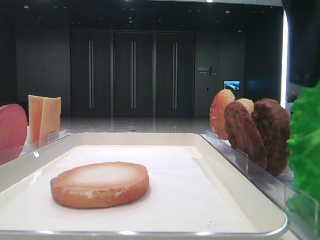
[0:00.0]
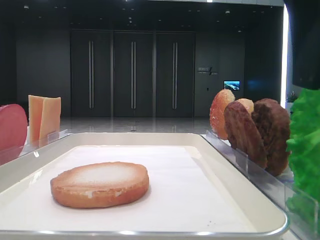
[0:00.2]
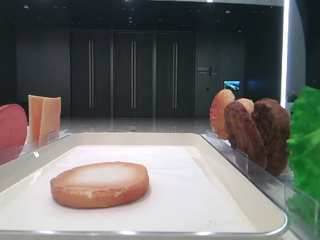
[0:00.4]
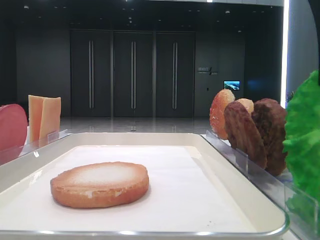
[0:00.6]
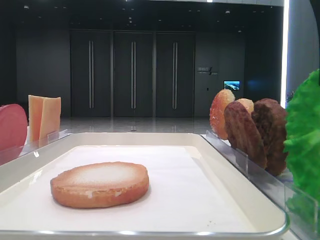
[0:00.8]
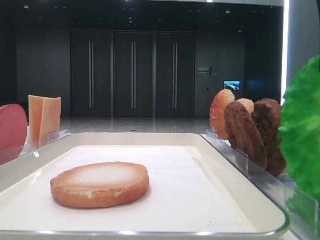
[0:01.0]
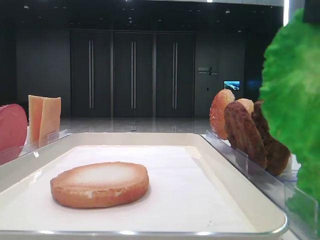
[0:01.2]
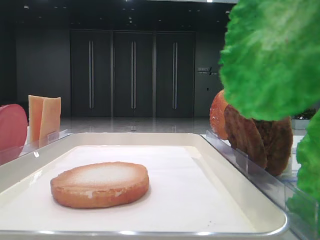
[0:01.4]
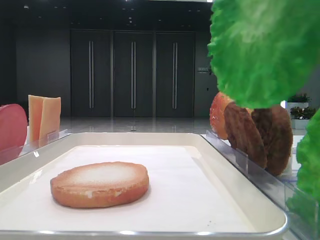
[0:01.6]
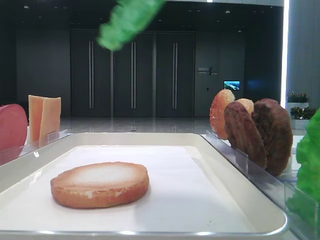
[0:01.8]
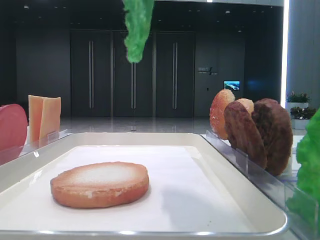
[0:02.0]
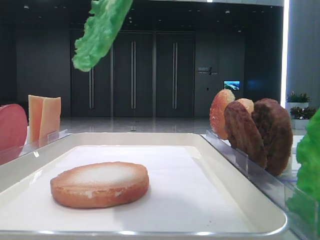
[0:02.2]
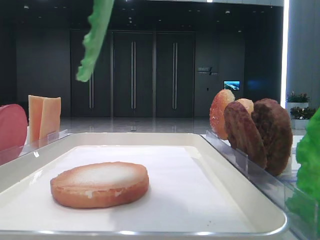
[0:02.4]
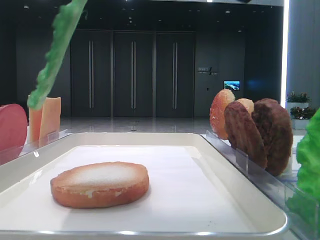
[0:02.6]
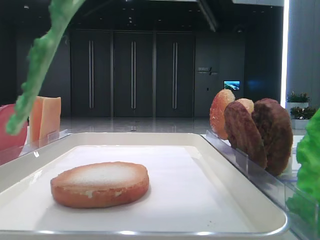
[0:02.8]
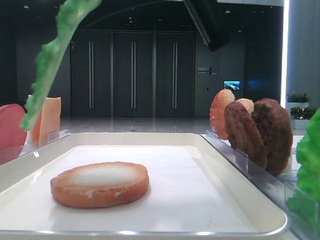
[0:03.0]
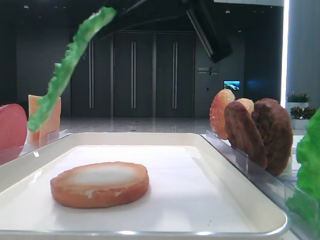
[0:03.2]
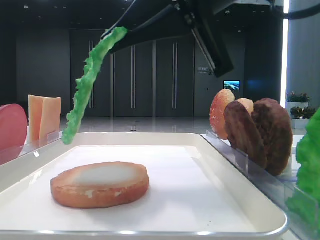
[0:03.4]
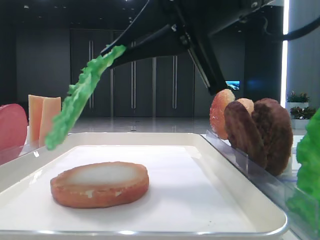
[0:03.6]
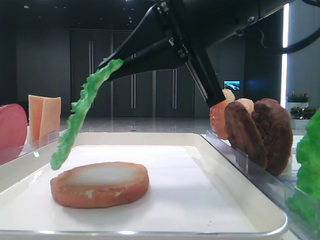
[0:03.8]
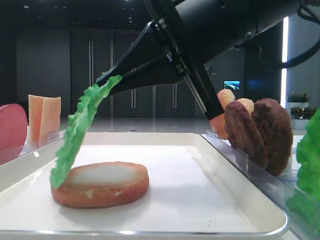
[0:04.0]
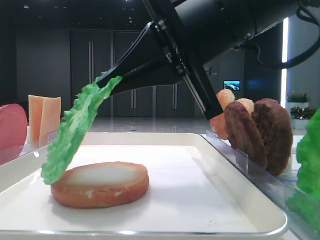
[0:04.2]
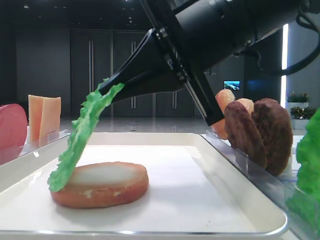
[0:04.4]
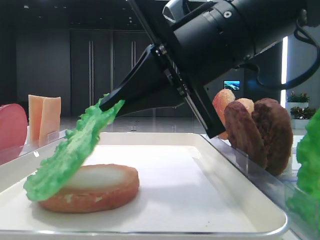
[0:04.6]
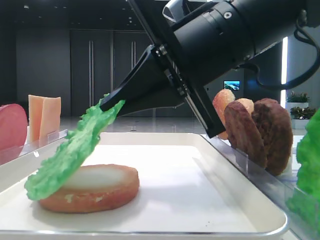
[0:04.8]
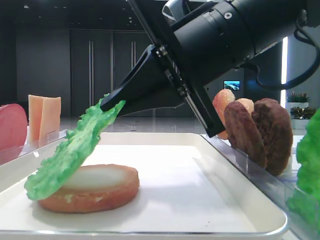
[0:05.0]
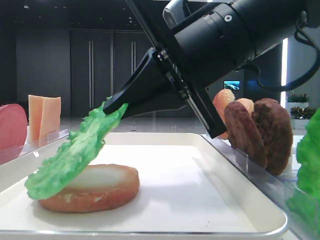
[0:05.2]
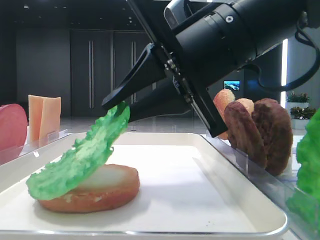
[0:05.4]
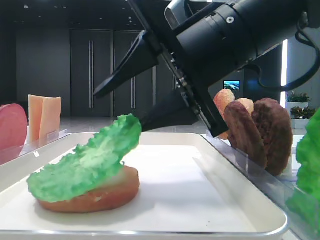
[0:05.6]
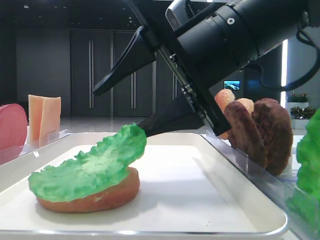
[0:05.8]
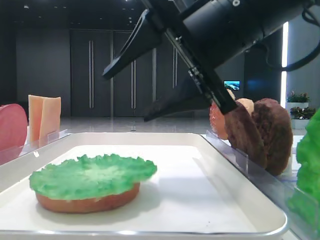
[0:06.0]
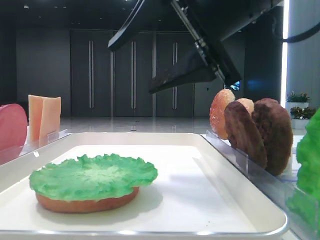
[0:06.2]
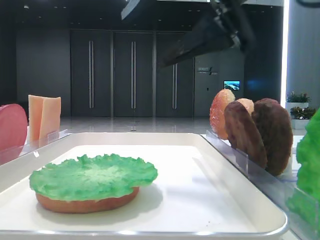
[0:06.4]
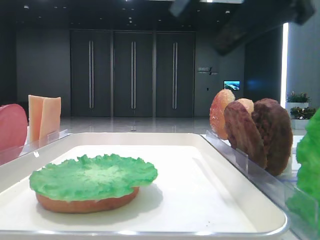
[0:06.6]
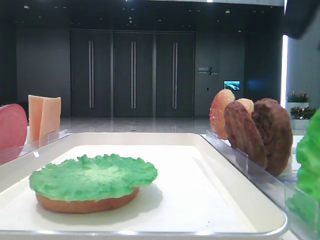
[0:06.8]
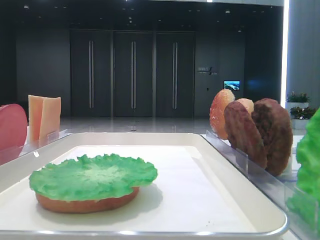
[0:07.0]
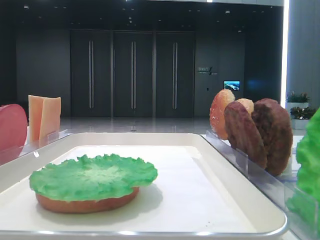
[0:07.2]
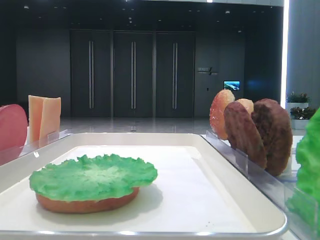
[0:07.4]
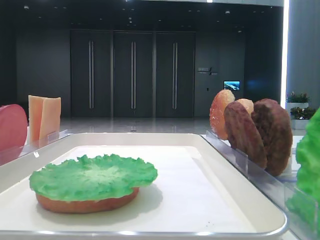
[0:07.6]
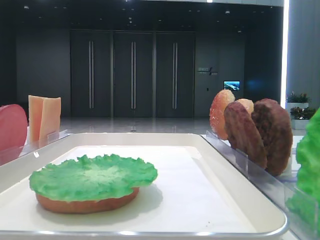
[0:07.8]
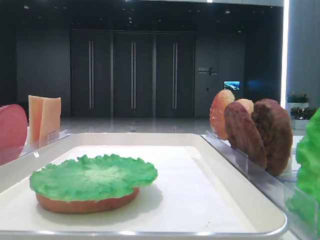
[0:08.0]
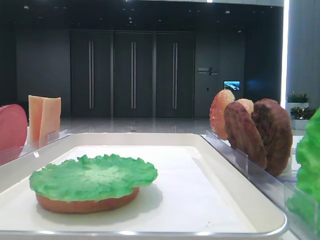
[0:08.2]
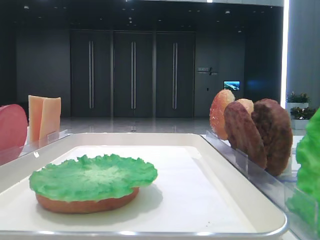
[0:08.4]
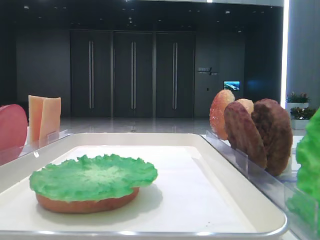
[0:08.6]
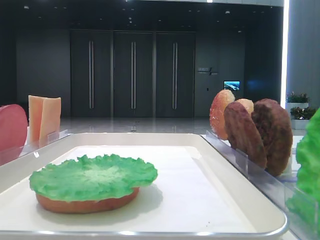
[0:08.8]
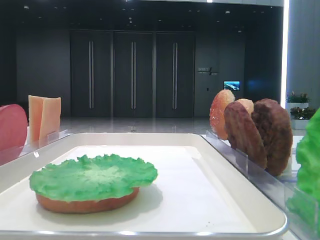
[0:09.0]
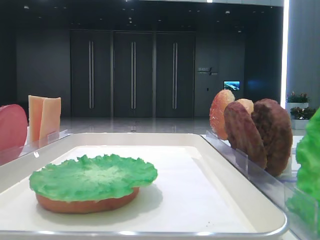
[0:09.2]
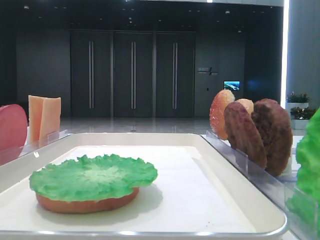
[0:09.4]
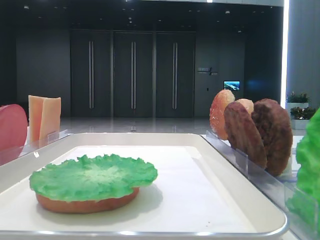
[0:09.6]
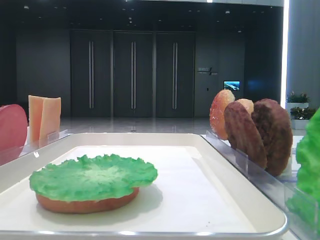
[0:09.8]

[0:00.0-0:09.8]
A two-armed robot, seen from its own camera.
Step, 0:00.8 to 0:05.8: Place the lettuce leaf on the bottom bread with the right hand.
0:00.0 to 0:01.4: The right gripper travels upward and to the left by roughly 10 cm, and closes its fingers.
0:01.4 to 0:02.8: The right gripper goes roughly 10 cm downward and forward.
0:02.8 to 0:04.2: The right gripper moves downward, roughly 5 cm.
0:04.2 to 0:05.6: The right gripper opens.
0:05.6 to 0:07.0: The right gripper moves to the right, upward and backward, some 30 cm.
0:08.4 to 0:09.8: Both grippers stay put.

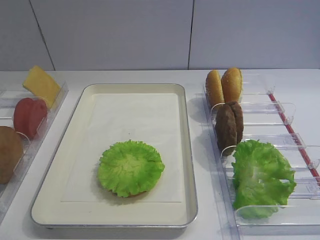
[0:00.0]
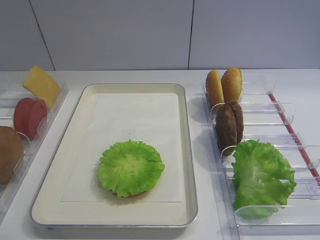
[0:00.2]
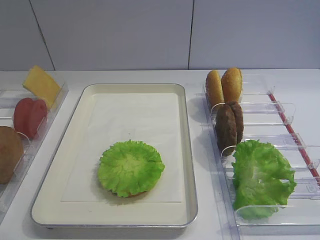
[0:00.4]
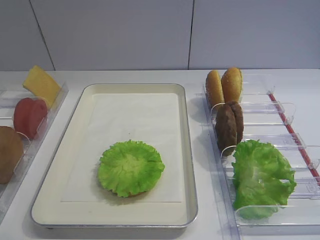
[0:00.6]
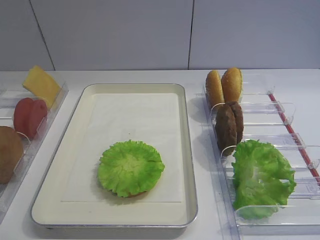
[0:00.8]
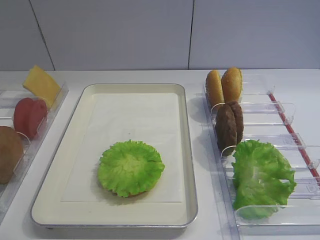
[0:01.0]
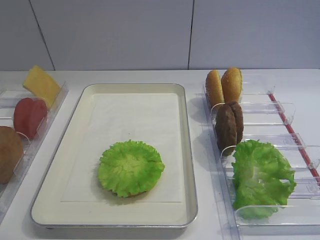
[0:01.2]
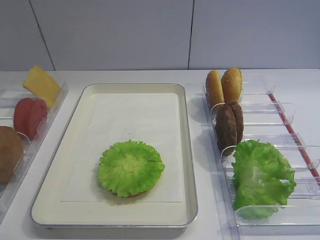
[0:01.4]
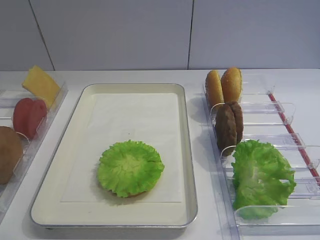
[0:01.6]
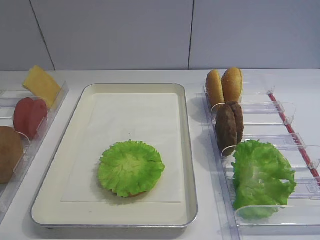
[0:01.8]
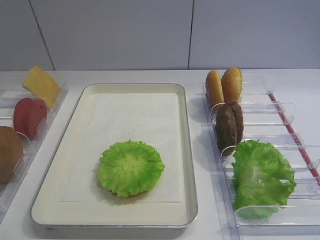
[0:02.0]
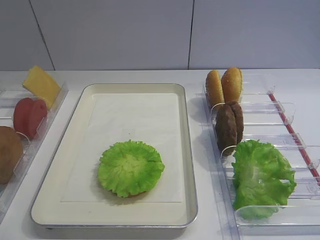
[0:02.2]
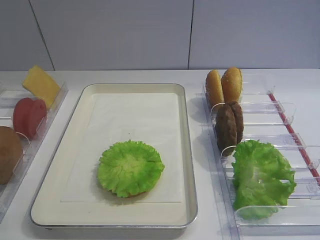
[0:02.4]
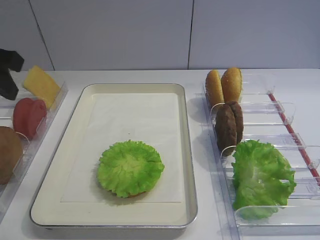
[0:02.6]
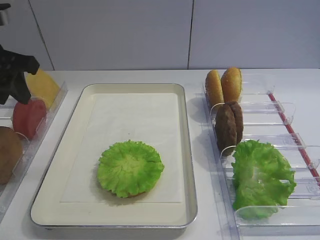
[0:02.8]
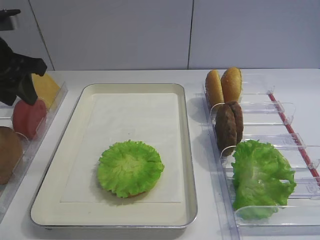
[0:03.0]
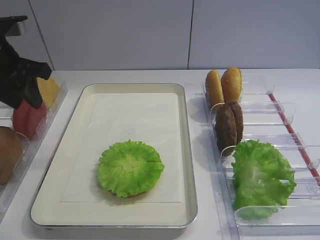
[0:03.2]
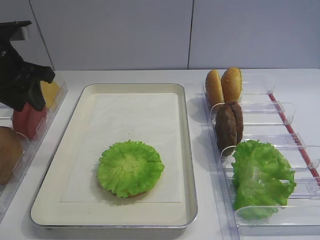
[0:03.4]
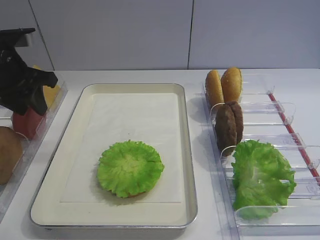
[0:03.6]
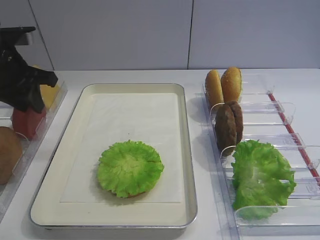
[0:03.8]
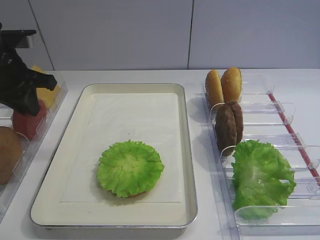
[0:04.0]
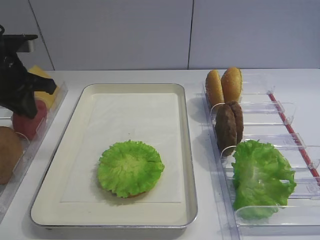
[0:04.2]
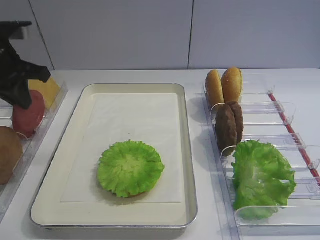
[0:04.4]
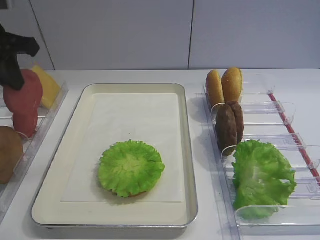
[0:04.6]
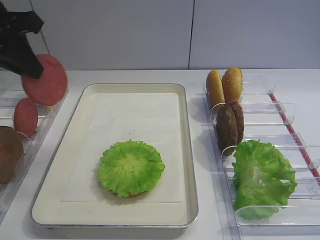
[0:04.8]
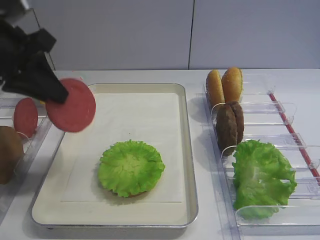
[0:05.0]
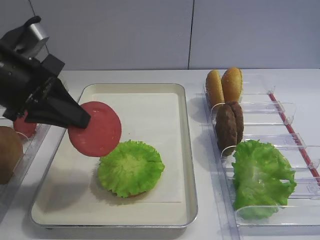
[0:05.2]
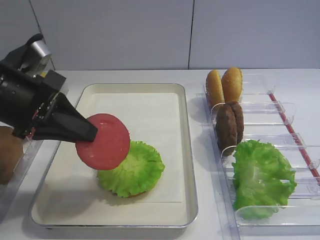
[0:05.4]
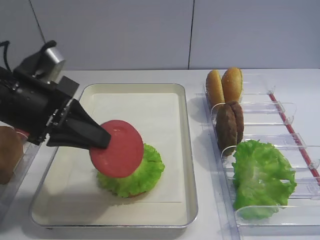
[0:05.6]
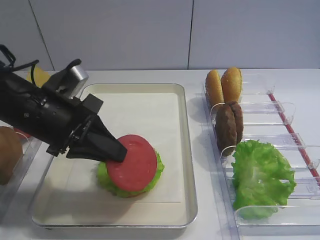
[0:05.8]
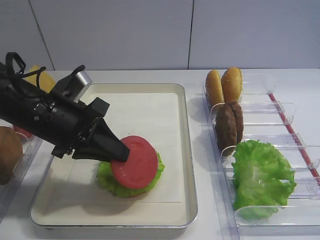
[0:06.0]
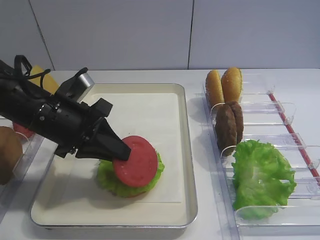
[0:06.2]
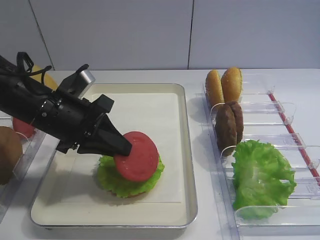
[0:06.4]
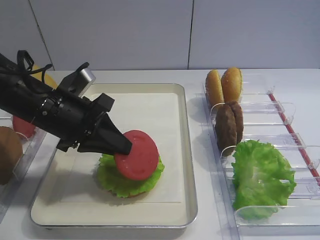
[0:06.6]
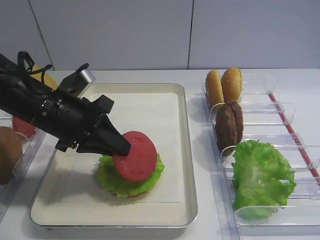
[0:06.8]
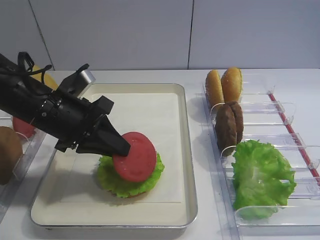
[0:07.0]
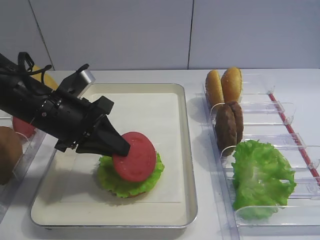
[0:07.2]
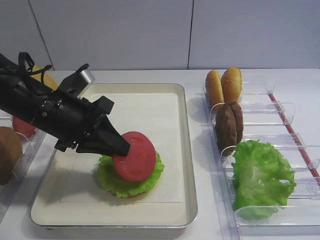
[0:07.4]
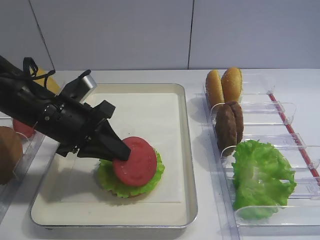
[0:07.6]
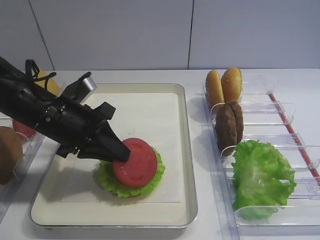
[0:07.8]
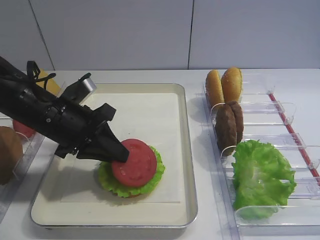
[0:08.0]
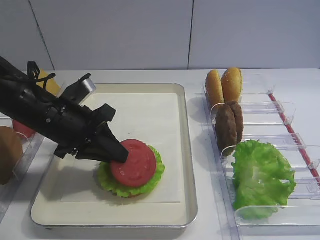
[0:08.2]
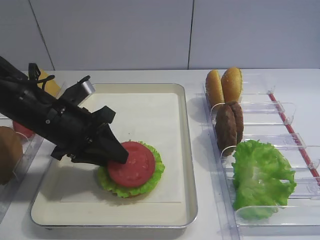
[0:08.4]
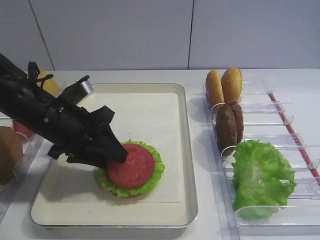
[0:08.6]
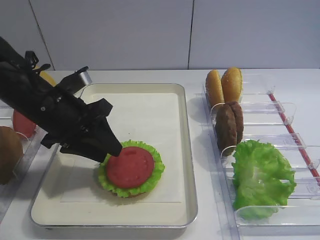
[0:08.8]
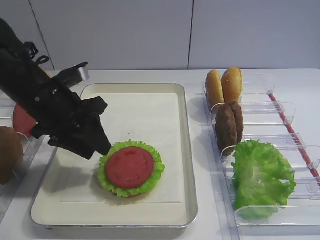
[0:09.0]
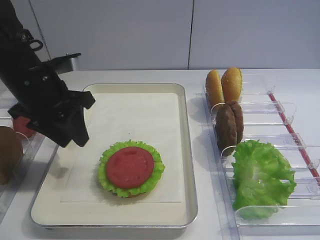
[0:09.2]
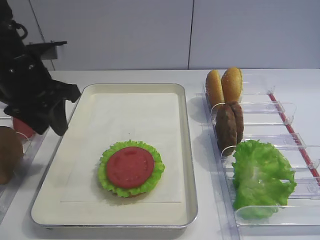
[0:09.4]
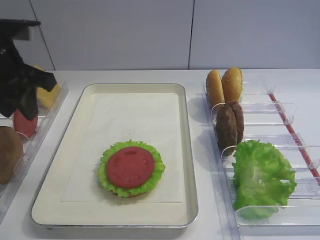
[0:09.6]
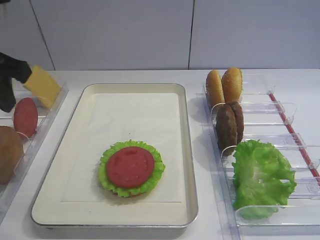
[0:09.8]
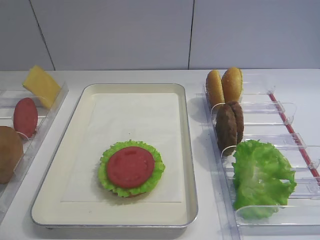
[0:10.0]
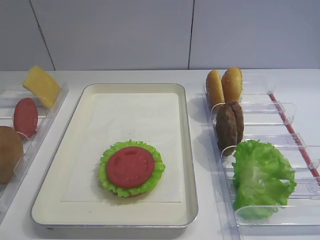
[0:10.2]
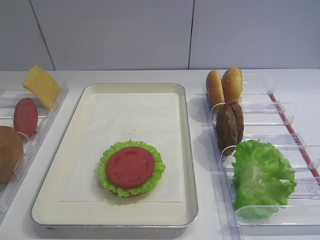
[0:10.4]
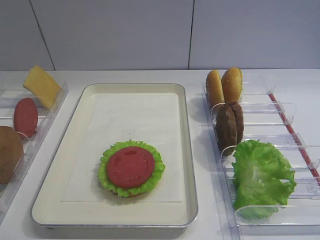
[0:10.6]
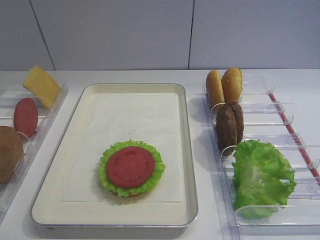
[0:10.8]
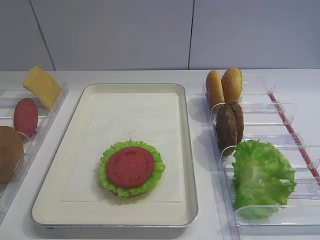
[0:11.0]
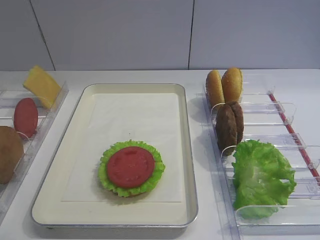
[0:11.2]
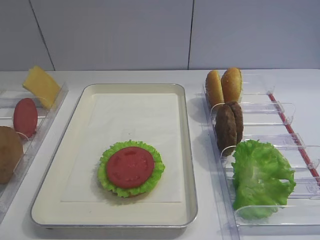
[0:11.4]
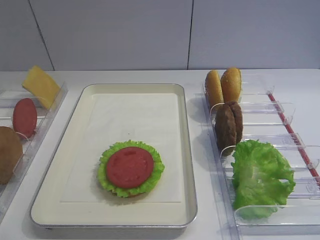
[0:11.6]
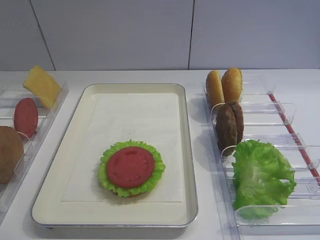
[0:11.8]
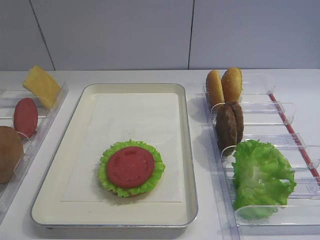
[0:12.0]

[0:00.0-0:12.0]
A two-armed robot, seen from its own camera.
Step, 0:00.0 to 0:04.6: Pick up the tomato slice with the left gripper.
Step, 0:04.8 to 0:08.8: Place the tomato slice on the lettuce leaf with the left gripper.
0:01.6 to 0:03.0: The left gripper travels forward by some 35 cm.
0:03.0 to 0:04.4: The left gripper closes its fingers.
0:04.4 to 0:06.0: The left gripper travels to the right, backward and downward by roughly 15 cm.
0:06.0 to 0:07.6: The grippers stay close to where they were, moving slightly.
0:07.6 to 0:09.0: The left gripper opens its fingers.
0:09.0 to 0:10.4: The left gripper travels backward, upward and to the left by approximately 25 cm.
